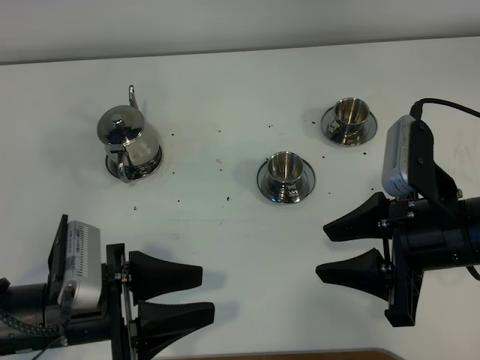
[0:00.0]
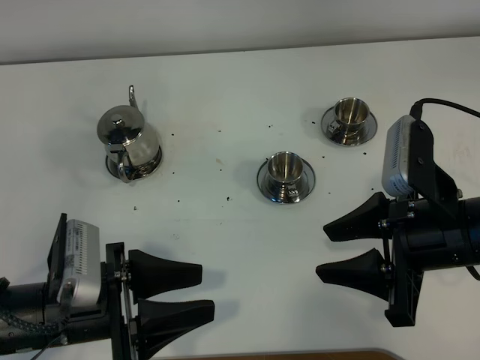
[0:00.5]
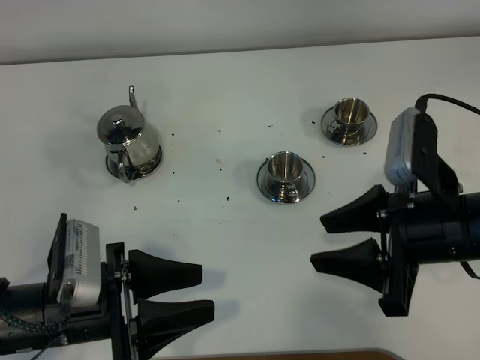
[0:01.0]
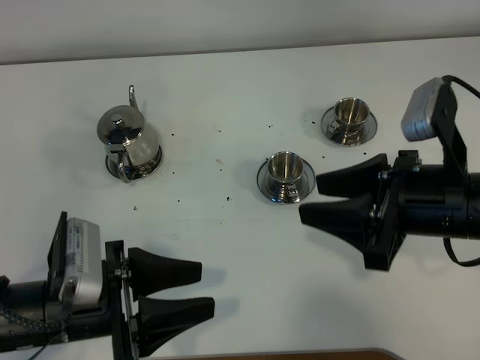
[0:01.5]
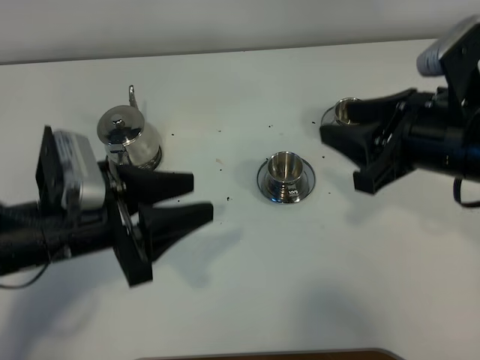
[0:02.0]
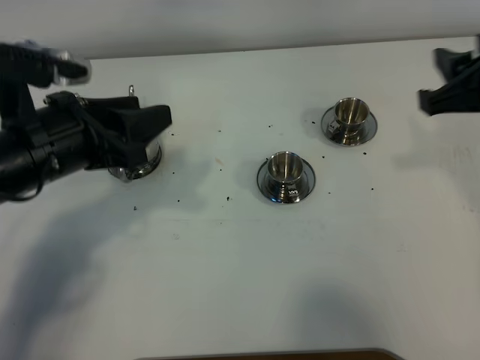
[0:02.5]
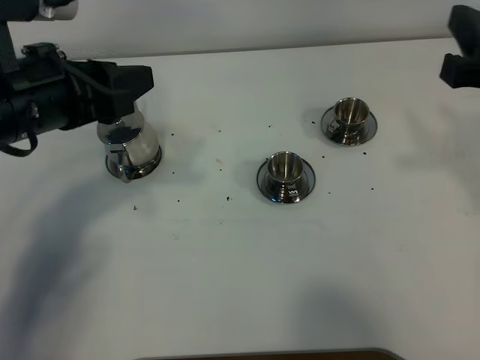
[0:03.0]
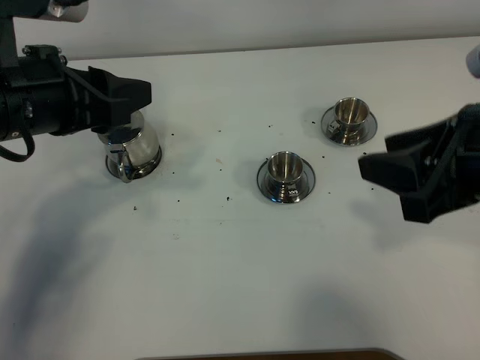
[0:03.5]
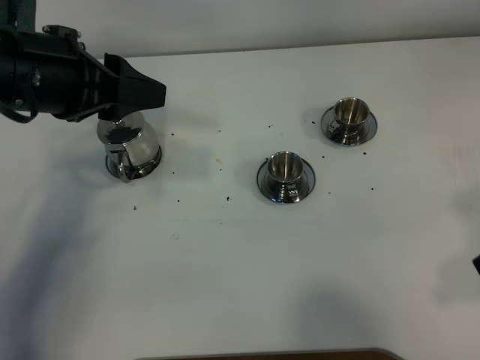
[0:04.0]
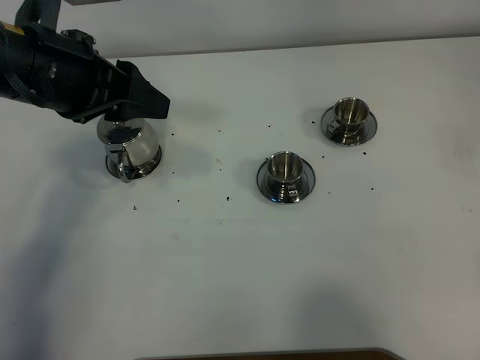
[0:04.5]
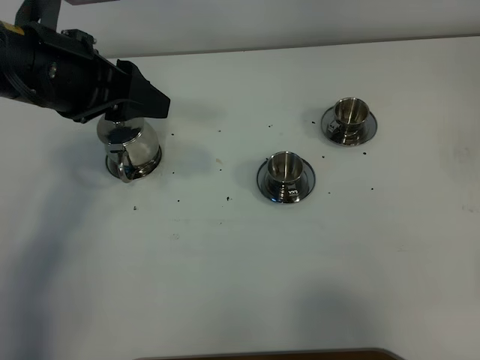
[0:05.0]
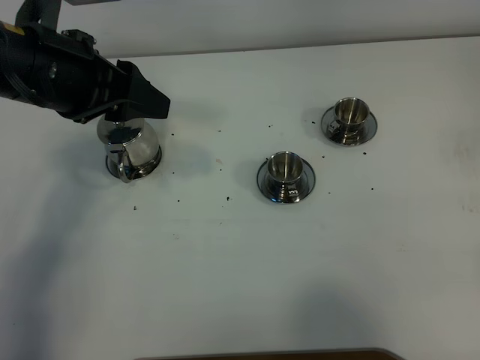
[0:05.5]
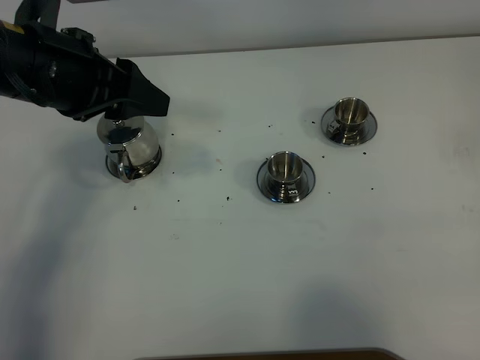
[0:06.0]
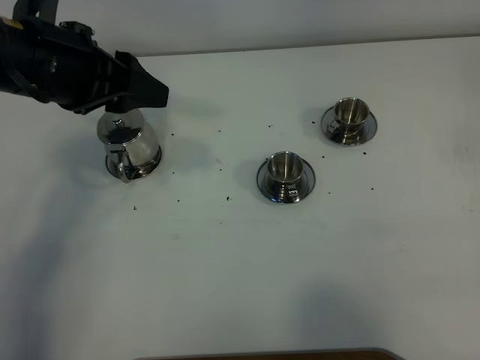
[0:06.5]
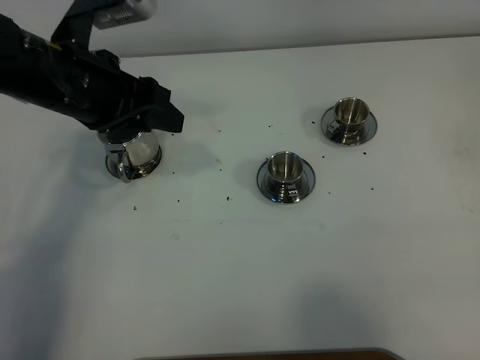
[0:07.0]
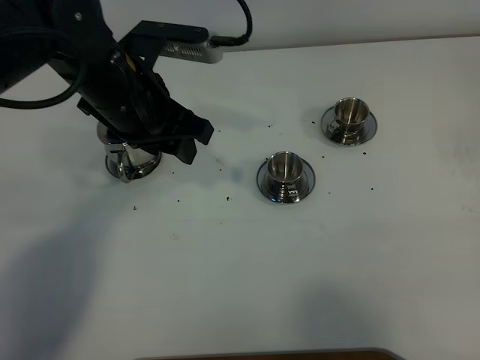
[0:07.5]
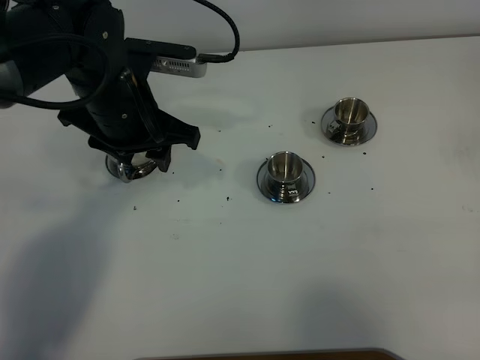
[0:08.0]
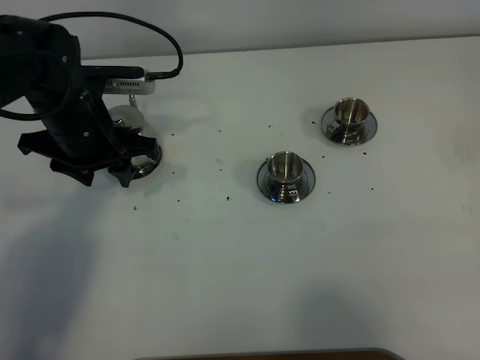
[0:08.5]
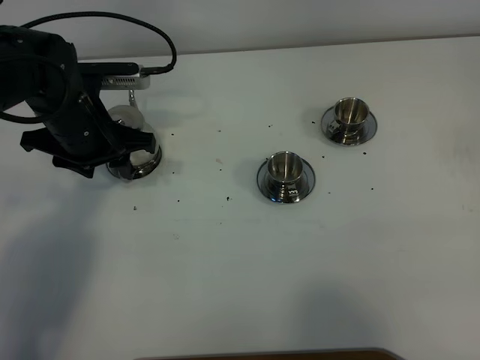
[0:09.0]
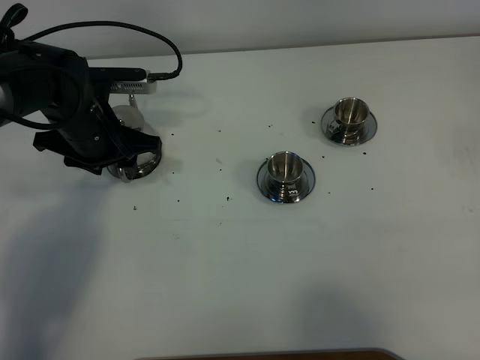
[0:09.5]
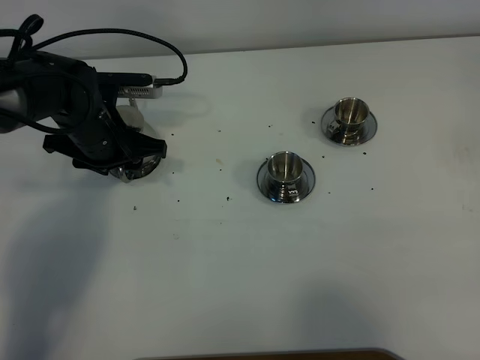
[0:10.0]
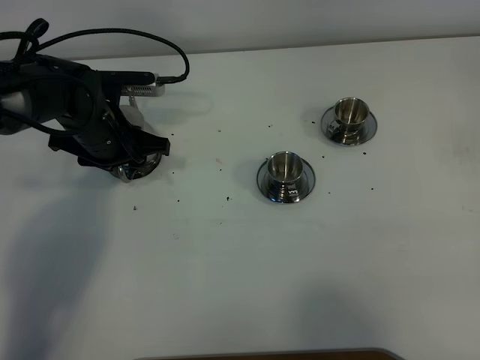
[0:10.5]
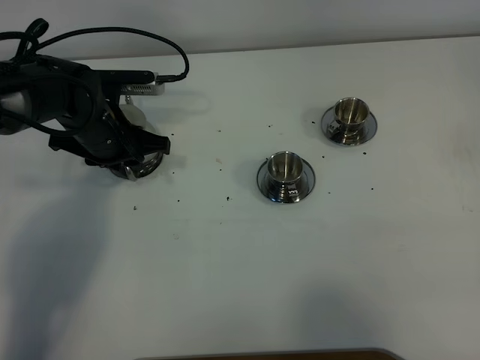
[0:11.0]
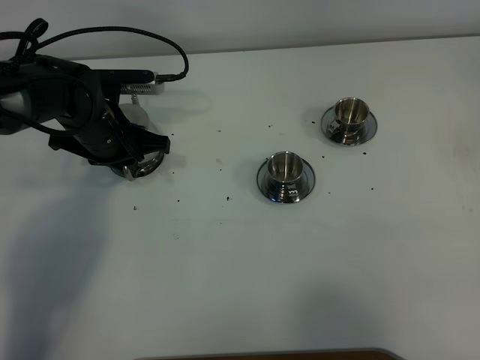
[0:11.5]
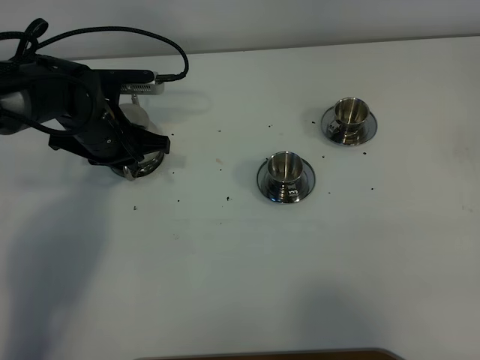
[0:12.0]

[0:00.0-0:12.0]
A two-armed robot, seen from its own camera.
Task of the whole recording: grasp the stainless steel teapot and pour the tea into the two stainless steel teacups one by one, put the stainless steel teapot back in its original place.
0:00.0 to 0:02.0: The left gripper is displaced forward and upward by about 10 cm, while the right gripper shifts approximately 5 cm forward, and closes its fingers.
0:02.0 to 0:04.0: The right gripper heads backward, to the right and upward, covering roughly 15 cm, and closes its fingers; the left gripper goes about 15 cm upward and forward.
0:04.0 to 0:06.0: The right gripper travels backward and to the right by roughly 15 cm.
0:06.0 to 0:08.0: The left gripper goes some 10 cm downward.
0:08.0 to 0:10.0: The left gripper heads downward and to the left, covering roughly 10 cm.
0:10.0 to 0:12.0: The left gripper closes.

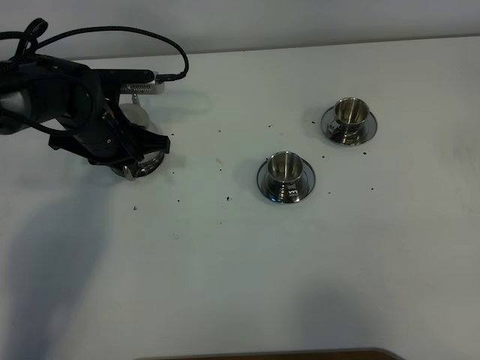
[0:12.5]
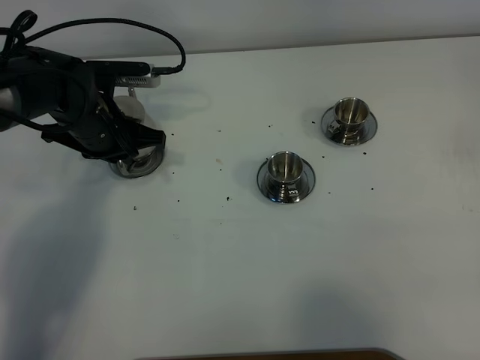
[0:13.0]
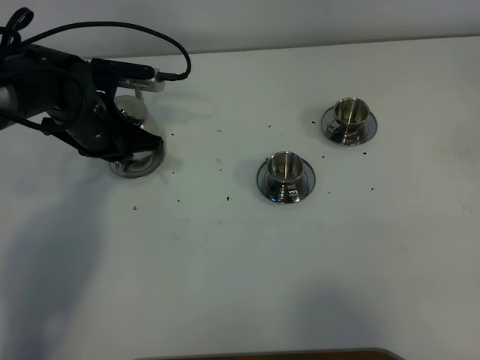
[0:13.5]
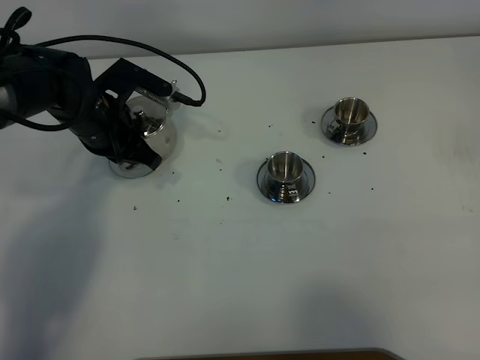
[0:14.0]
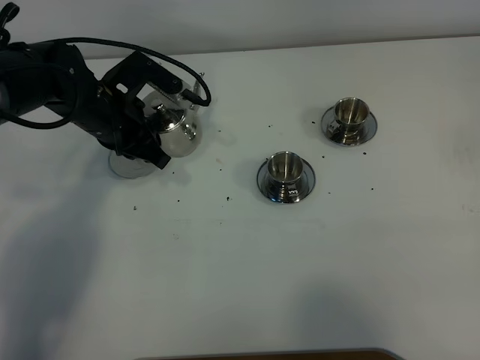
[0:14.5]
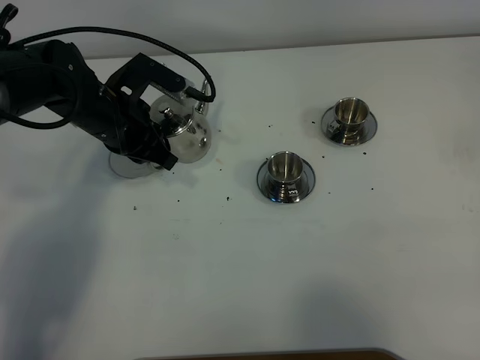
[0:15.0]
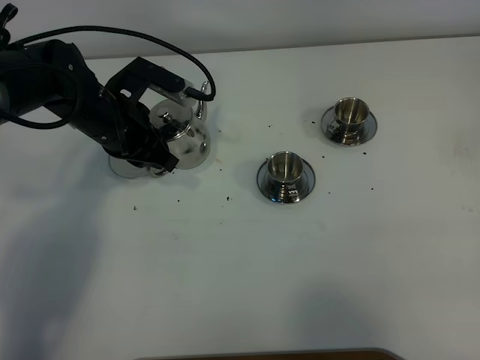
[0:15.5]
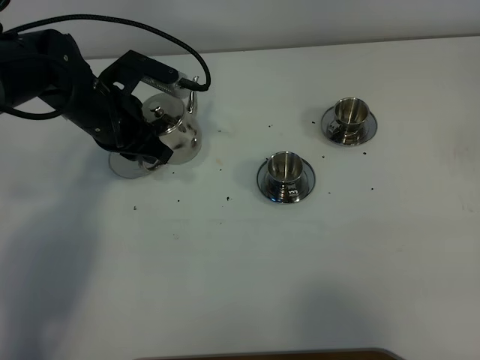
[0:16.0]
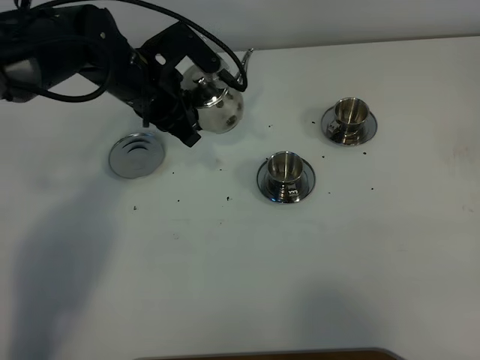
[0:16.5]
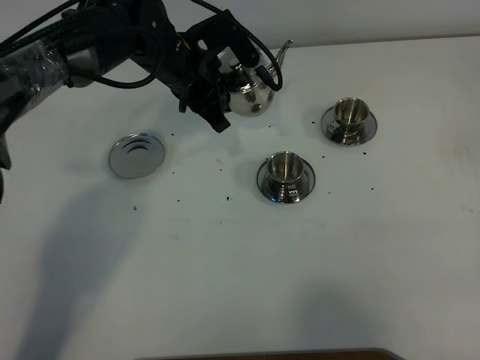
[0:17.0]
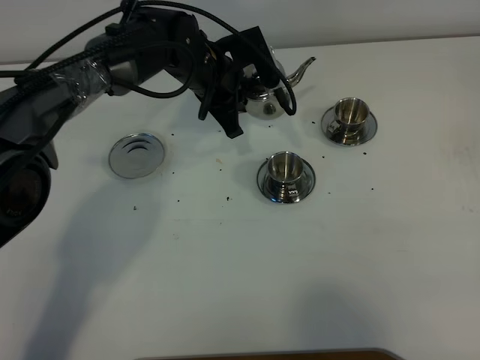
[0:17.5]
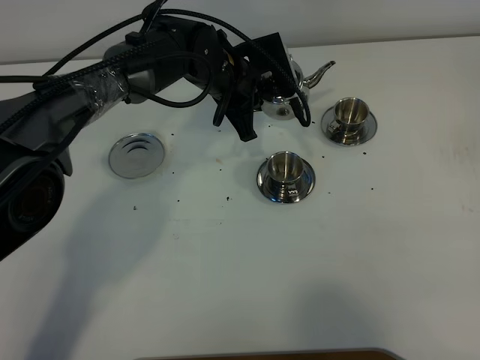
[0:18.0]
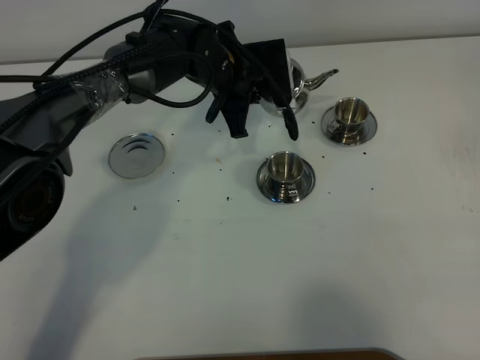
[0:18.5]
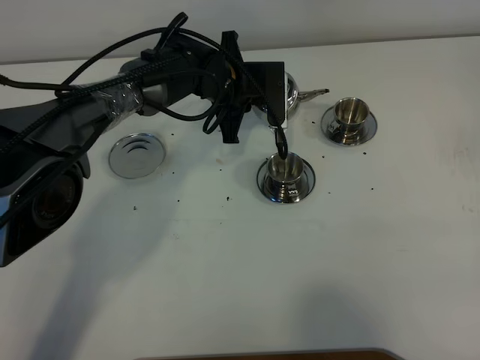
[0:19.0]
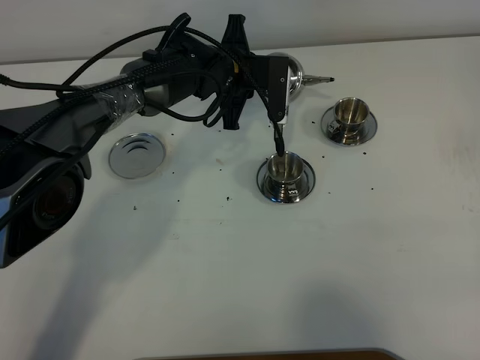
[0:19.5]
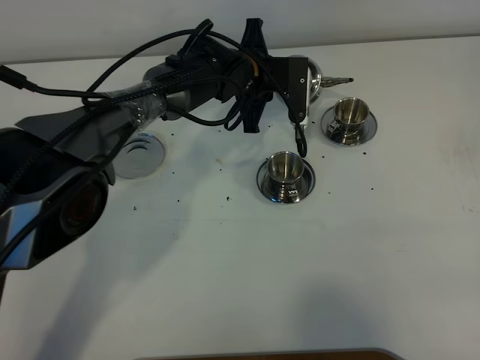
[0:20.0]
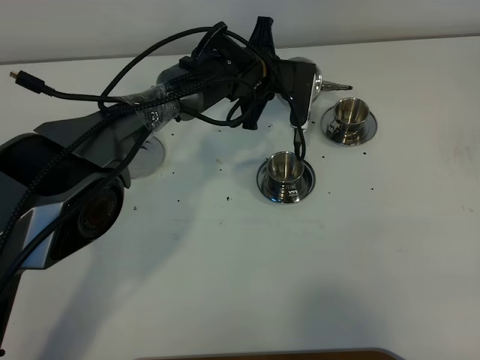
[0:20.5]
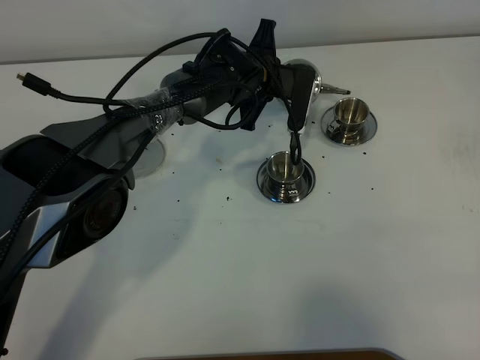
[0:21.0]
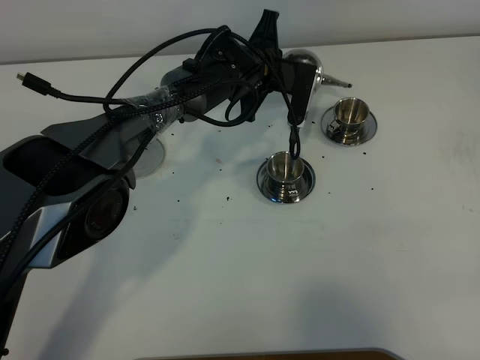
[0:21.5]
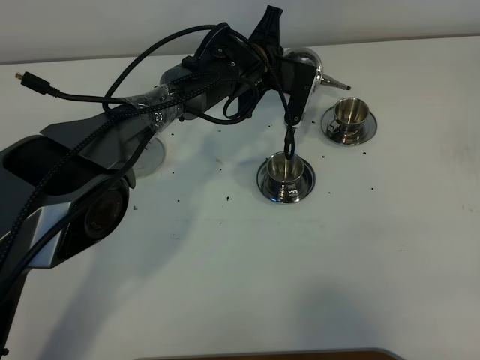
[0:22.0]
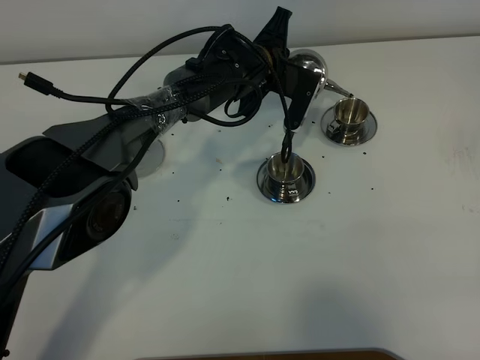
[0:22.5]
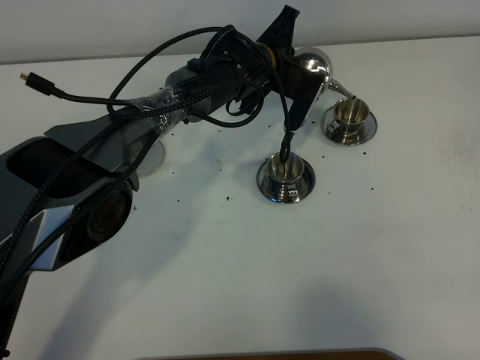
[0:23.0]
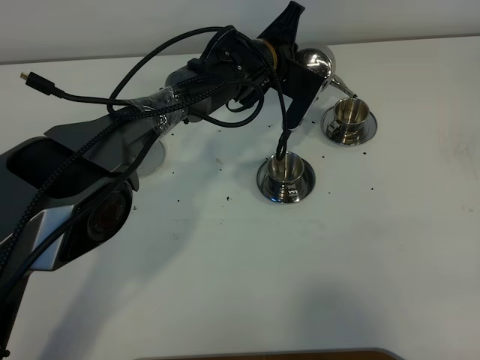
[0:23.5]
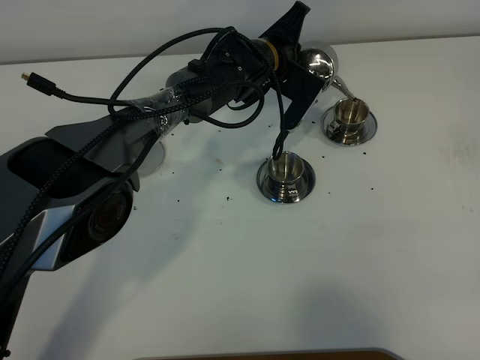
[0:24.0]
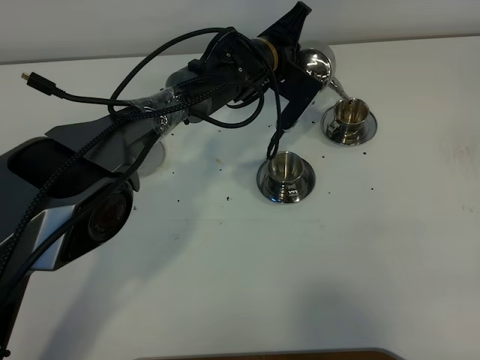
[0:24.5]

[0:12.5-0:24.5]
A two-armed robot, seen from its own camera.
Task of the whole recording: grasp the stainless steel teapot and pour the tea into the two stainless steel teacups one by one, put the stainless steel teapot back in its original place.
0:14.5 to 0:16.5: The left gripper moves roughly 5 cm.
0:16.5 to 0:18.5: The left gripper shifts approximately 10 cm to the right and forward.
0:18.5 to 0:20.5: The left gripper ends up roughly 5 cm from where it was.
0:20.5 to 0:22.5: The grippers stay close to where they were, moving slightly.
0:22.5 to 0:24.5: The grippers stay close to where they were, moving slightly.

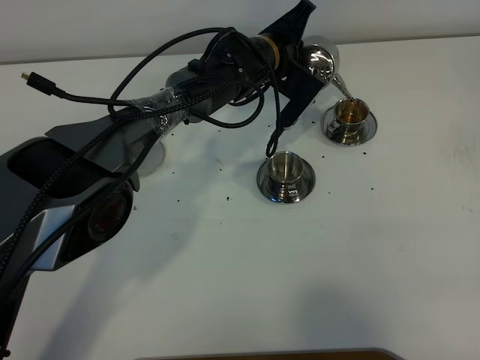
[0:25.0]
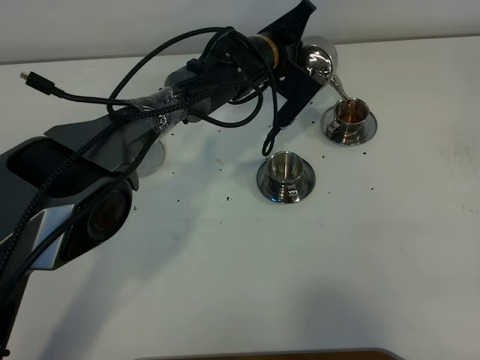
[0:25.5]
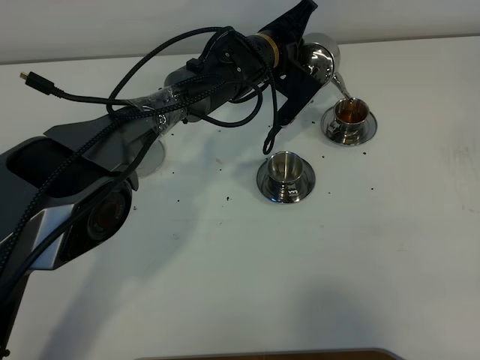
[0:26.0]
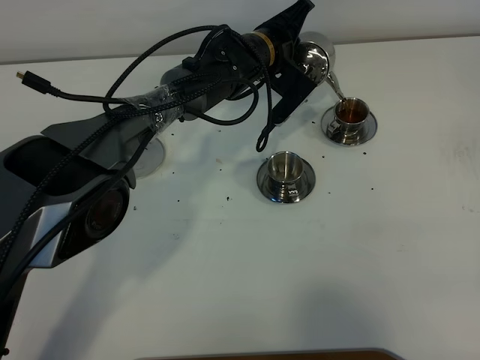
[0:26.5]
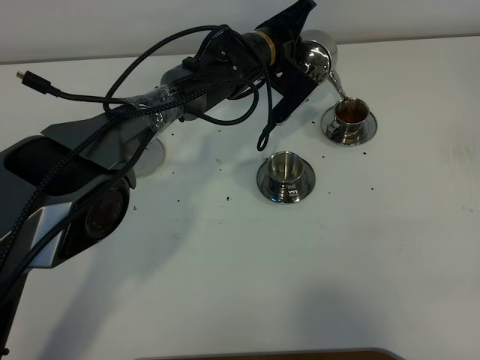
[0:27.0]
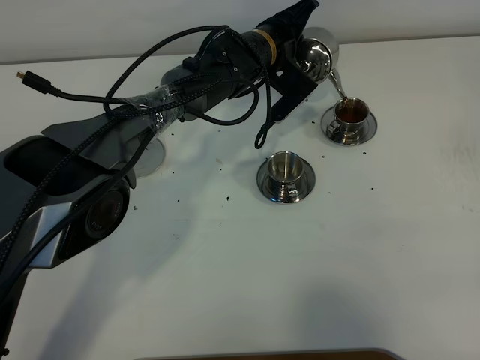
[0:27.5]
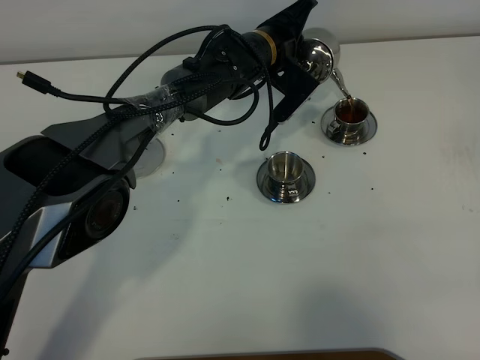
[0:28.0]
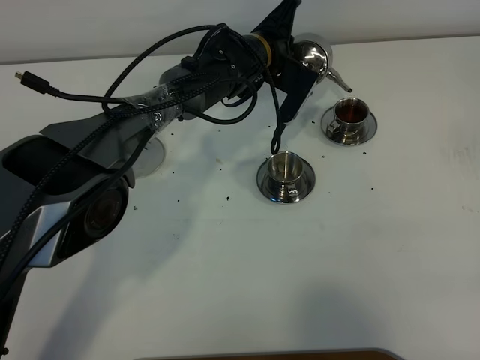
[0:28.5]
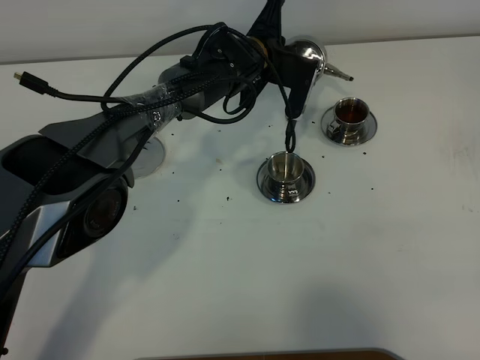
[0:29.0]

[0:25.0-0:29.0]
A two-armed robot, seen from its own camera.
Task of the whole recording: grasp the stainless steel teapot and pour the tea into the two stainless steel teacups one by one, put the stainless steel teapot back in its original place.
0:25.0 to 0:27.0: There are only small adjustments of the grippers.
